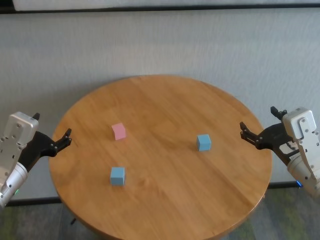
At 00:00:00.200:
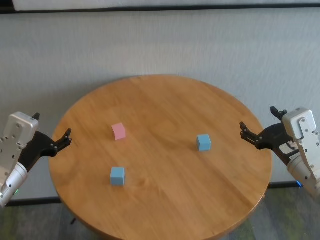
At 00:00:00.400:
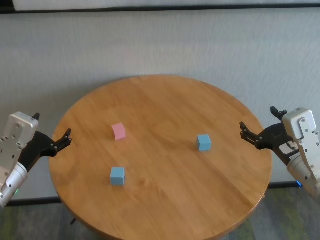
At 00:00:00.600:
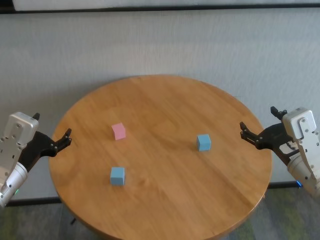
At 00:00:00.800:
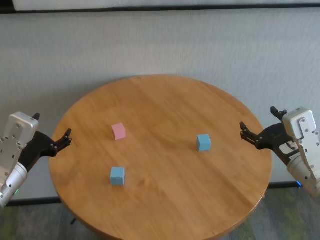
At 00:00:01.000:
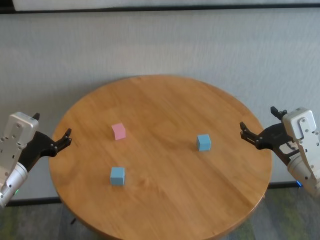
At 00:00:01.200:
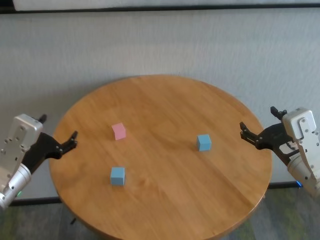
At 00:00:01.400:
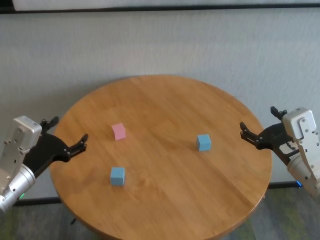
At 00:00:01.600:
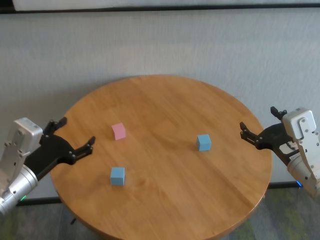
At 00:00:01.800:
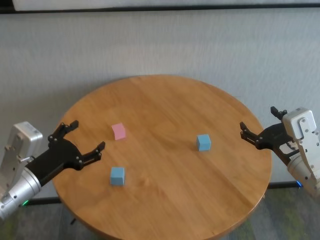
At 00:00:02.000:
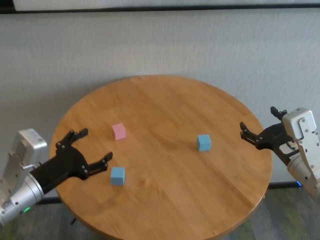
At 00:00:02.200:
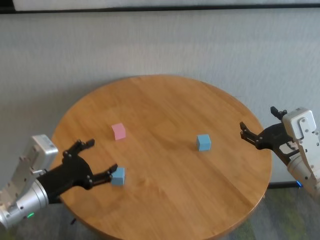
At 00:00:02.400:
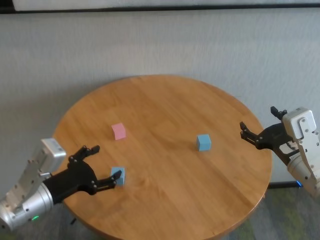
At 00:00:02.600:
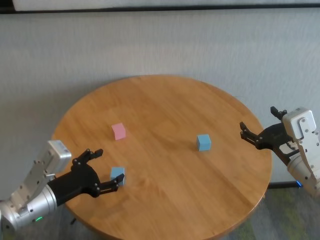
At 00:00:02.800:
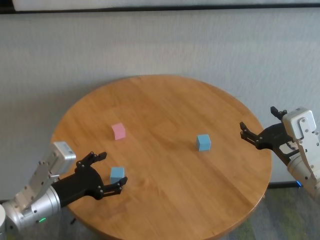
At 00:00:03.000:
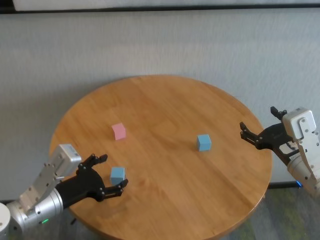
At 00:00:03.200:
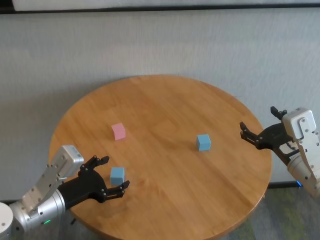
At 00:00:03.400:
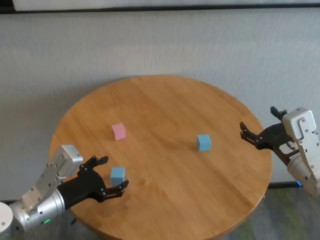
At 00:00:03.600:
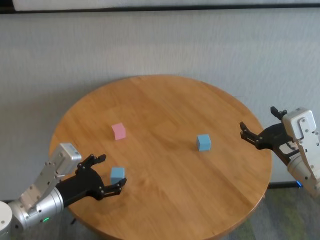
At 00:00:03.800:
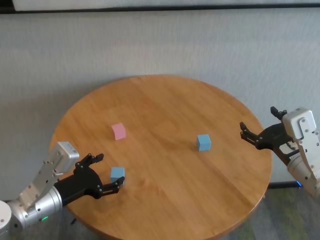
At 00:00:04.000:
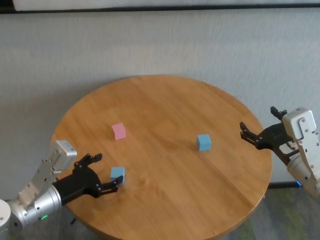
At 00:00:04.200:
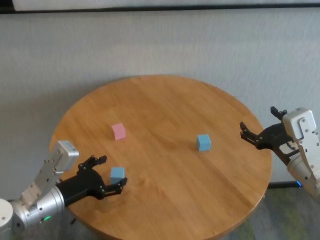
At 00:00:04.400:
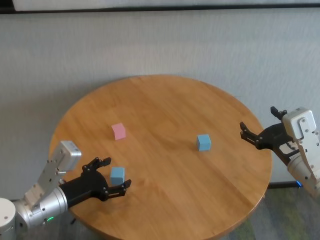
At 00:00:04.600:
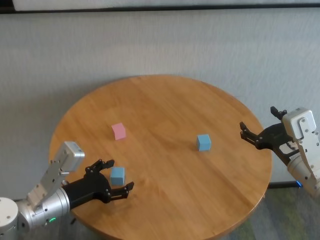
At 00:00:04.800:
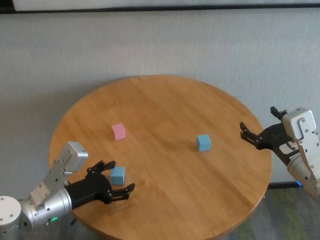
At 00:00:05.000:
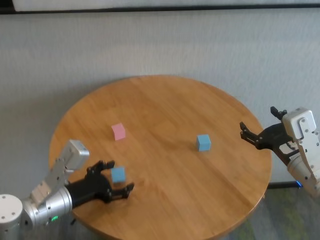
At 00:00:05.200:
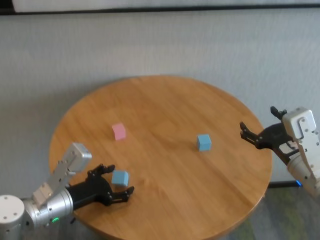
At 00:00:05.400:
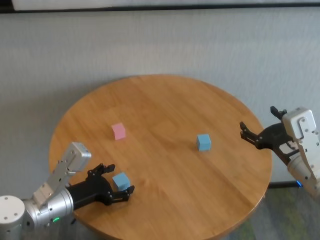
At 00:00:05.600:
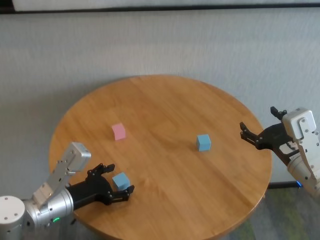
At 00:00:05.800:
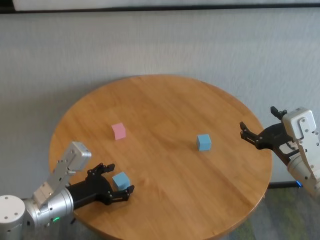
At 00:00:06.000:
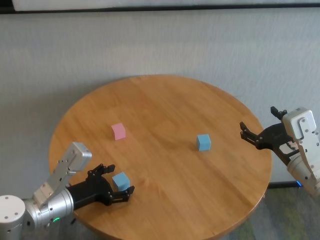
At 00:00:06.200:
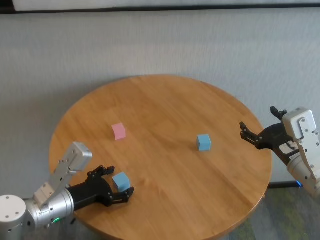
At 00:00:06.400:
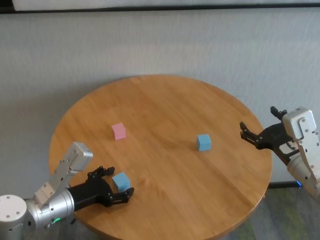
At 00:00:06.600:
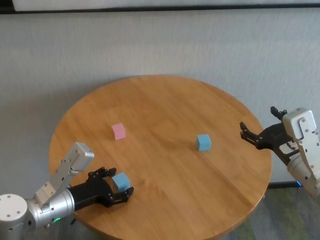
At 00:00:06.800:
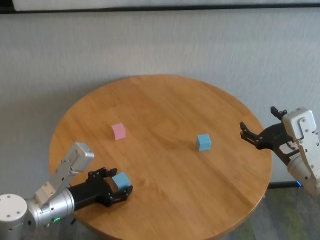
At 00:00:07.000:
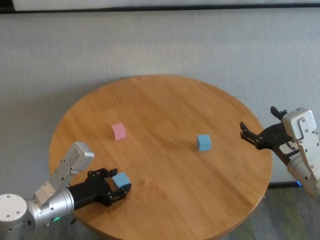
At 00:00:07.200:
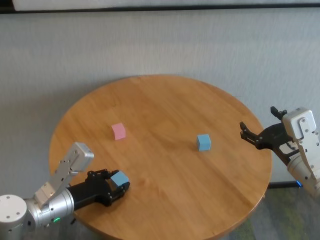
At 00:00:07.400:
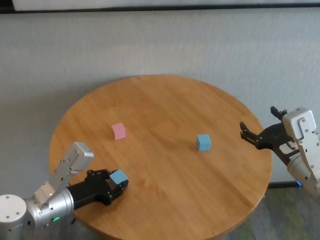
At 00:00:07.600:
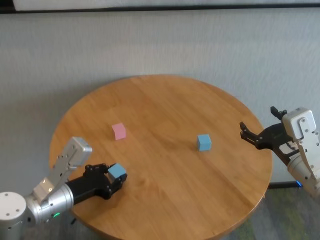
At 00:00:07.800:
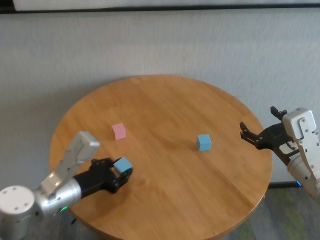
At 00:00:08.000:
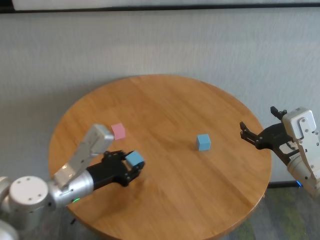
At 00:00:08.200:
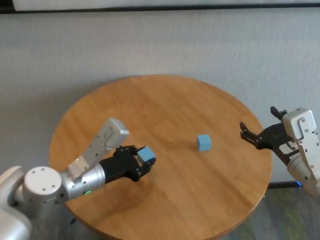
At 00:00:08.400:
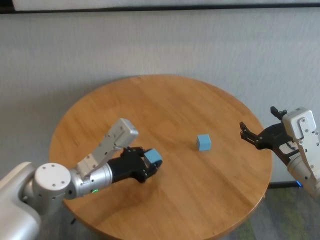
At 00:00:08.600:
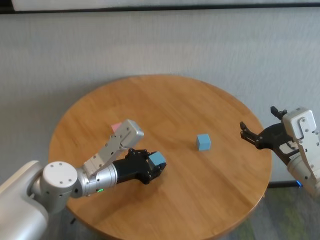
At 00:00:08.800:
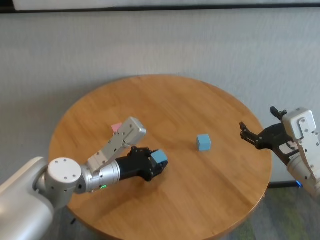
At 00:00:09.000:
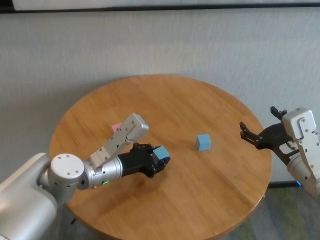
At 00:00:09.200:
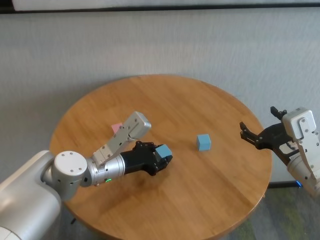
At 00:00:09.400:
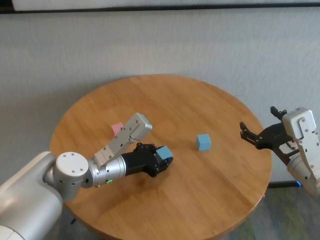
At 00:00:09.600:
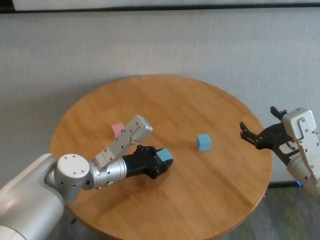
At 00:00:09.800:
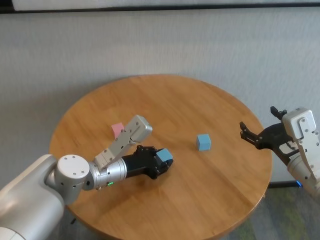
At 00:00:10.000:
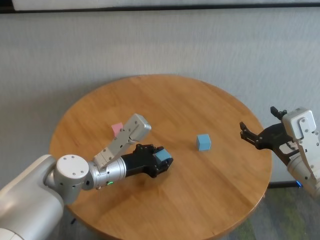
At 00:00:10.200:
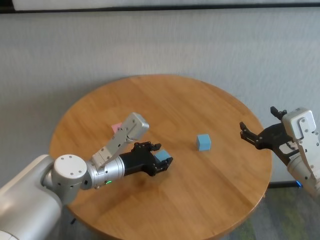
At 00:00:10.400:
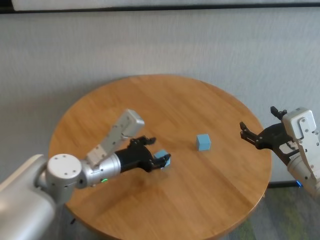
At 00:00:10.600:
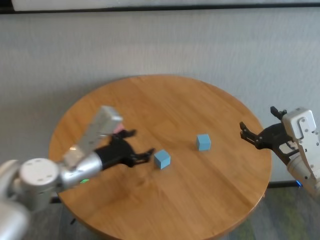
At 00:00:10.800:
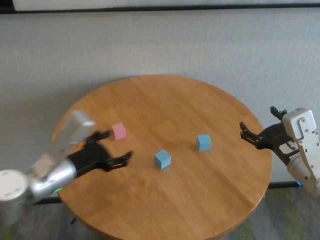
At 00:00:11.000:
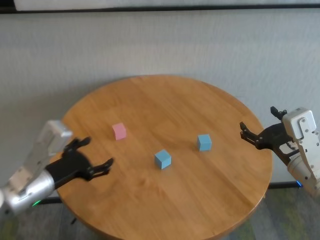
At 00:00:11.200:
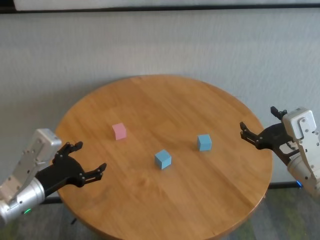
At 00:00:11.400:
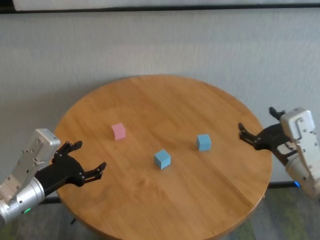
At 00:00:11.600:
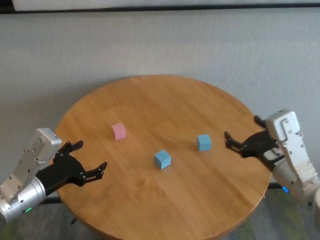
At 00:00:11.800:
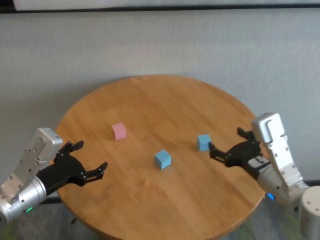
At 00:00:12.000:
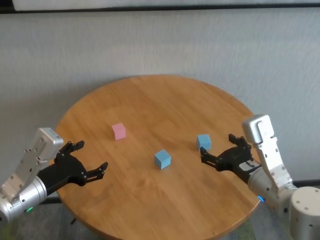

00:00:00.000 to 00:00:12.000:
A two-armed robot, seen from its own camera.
Task of the whole recording: stack building blocks on the table.
Step, 00:00:00.000 to 00:00:07.200: Grasp the blue building block with left gripper.
Step, 00:00:07.400 to 00:00:10.200: Place the blue building block in the center of table with left gripper.

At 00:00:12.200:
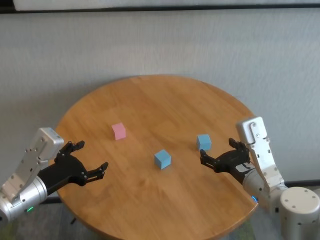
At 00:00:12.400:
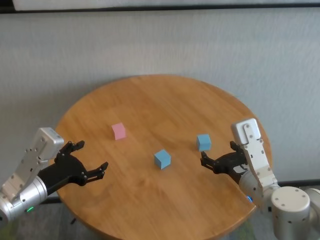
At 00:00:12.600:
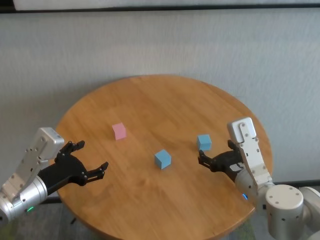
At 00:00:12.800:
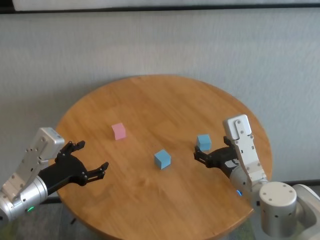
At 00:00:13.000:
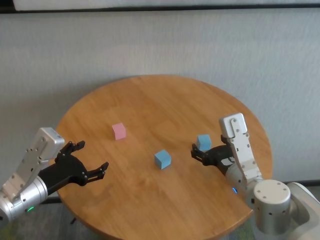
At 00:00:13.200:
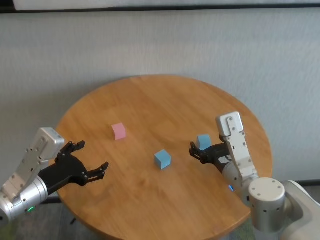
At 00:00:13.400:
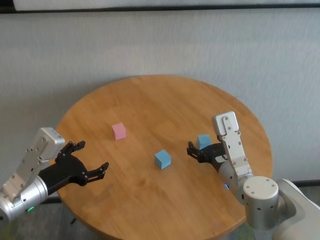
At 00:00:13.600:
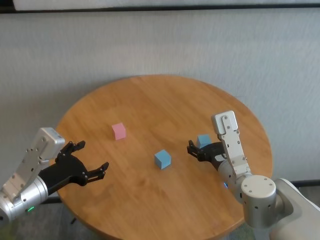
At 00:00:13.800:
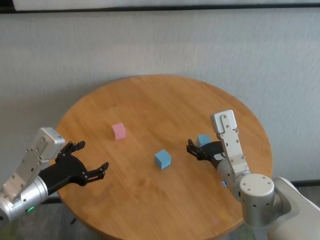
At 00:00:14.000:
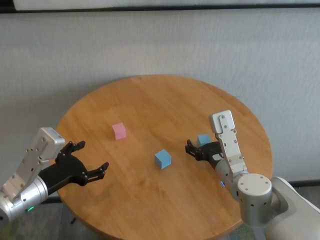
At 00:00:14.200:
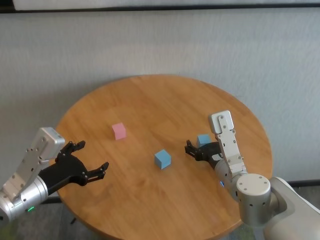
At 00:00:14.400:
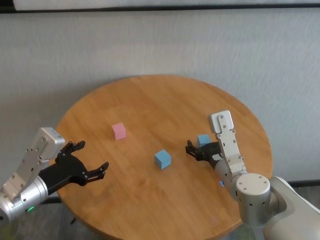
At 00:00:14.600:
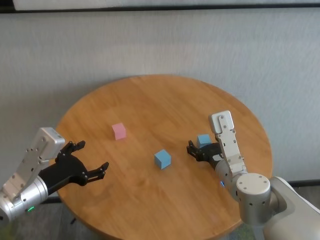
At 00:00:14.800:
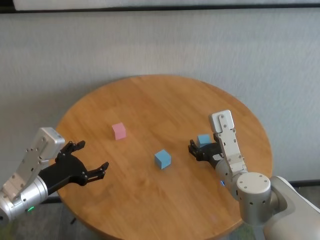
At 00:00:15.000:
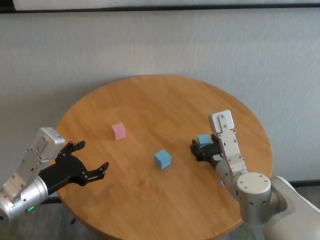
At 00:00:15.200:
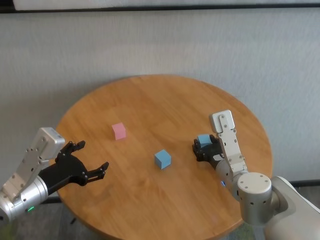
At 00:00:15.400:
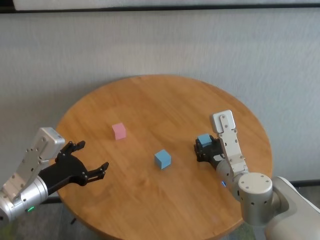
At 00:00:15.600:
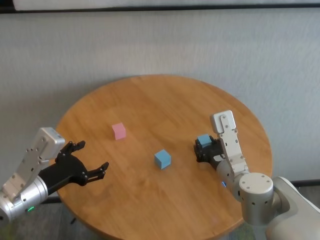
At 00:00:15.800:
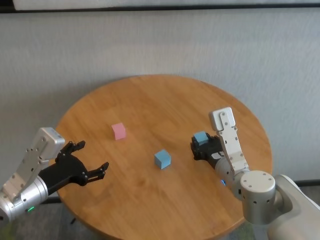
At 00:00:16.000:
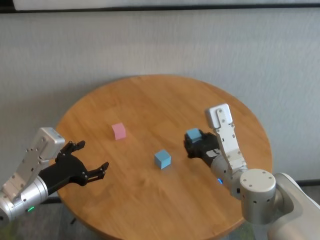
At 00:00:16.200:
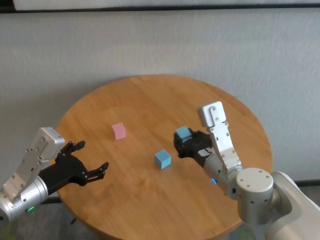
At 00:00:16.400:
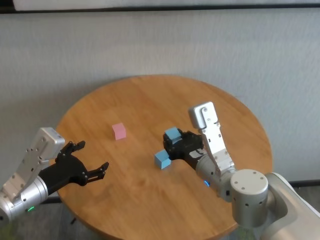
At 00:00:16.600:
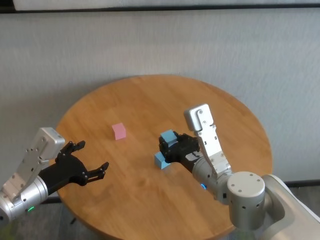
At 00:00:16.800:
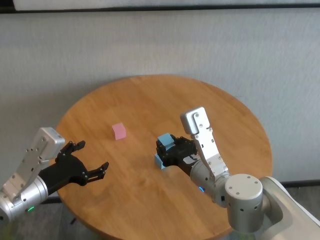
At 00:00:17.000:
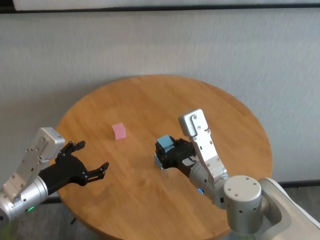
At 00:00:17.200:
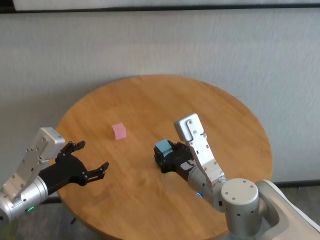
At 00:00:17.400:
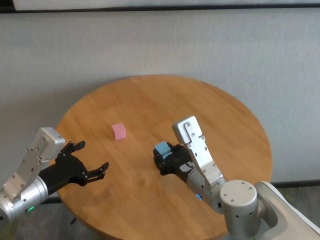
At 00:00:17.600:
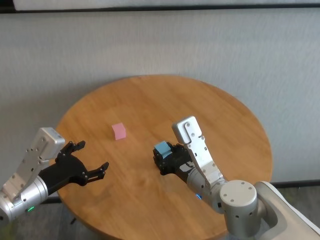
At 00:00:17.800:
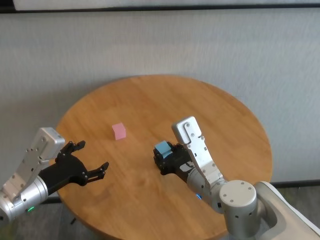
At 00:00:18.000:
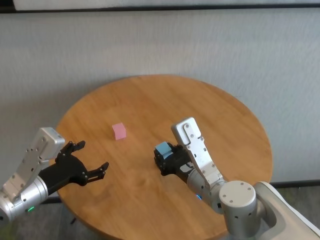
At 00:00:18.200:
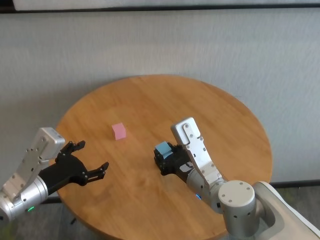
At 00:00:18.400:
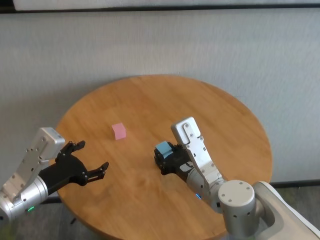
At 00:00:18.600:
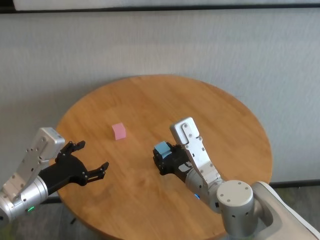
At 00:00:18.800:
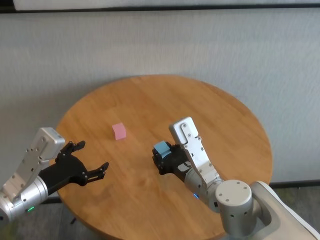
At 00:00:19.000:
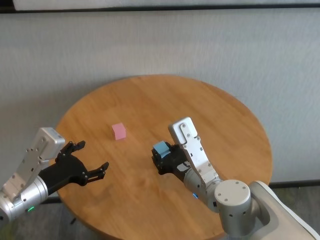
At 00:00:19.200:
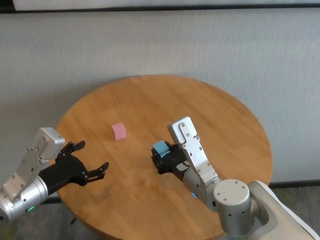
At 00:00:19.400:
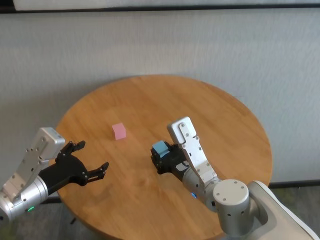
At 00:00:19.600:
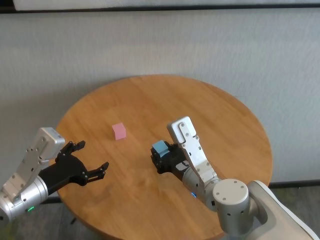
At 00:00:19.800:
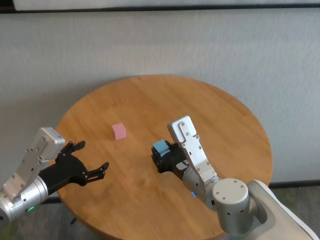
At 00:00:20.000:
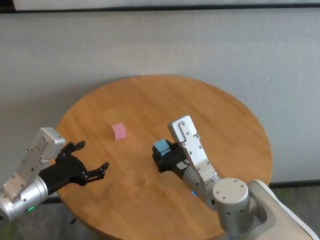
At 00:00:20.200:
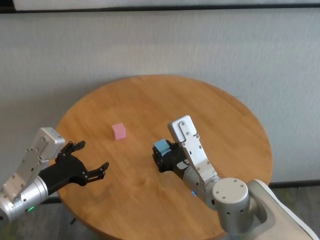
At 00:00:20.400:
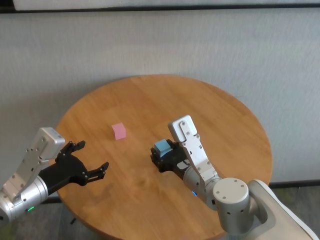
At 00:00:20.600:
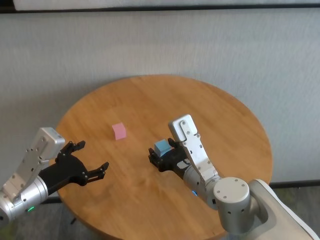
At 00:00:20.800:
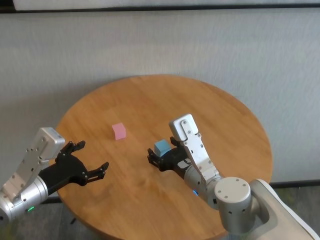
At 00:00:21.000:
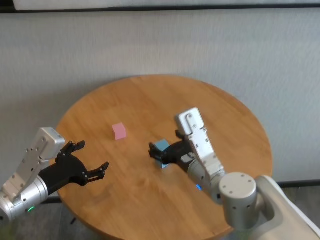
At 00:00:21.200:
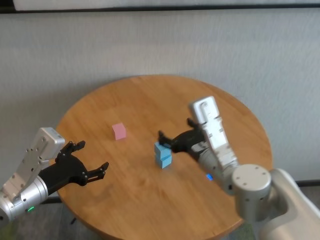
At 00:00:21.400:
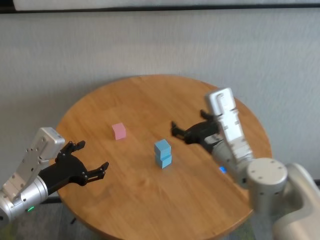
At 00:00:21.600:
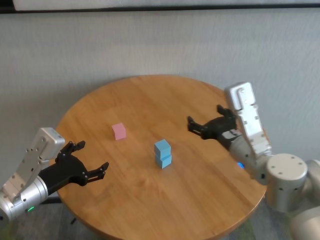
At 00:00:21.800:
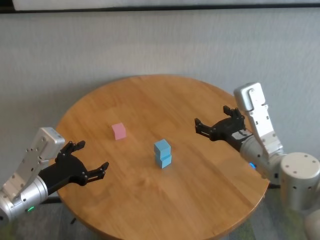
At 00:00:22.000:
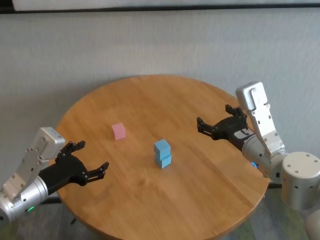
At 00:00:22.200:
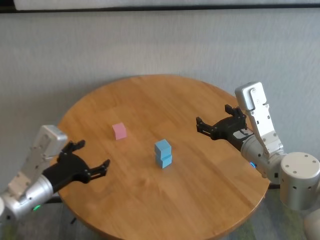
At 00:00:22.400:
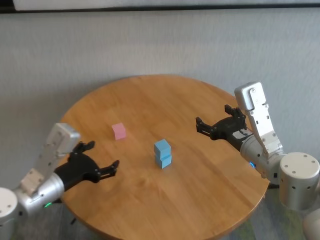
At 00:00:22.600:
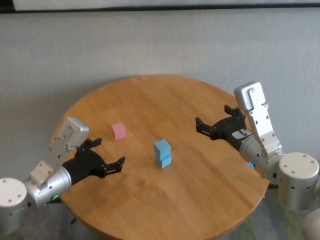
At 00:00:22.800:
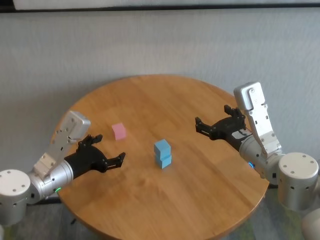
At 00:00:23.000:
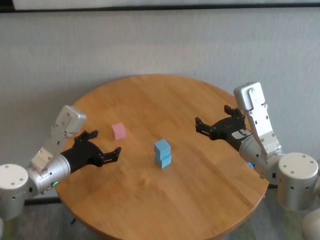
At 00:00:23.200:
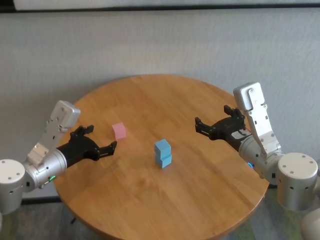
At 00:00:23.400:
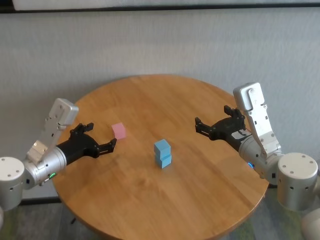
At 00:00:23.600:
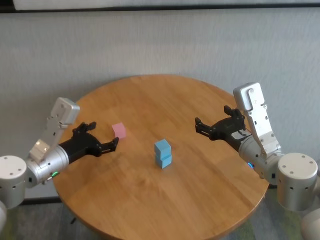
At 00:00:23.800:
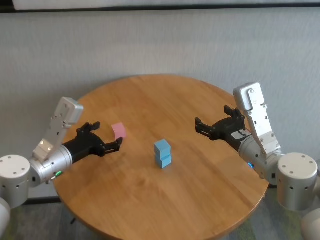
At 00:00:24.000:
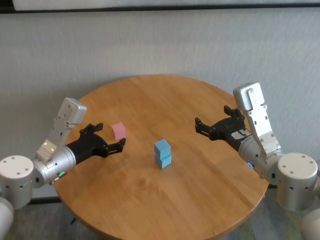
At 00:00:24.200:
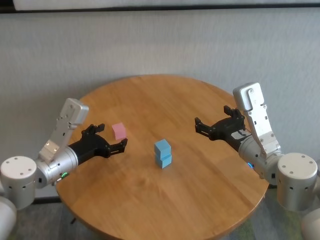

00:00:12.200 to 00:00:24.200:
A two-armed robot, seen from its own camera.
Task of the whole recording: stack building blocks on the table.
Step, 00:00:12.200 to 00:00:15.200: Grasp the blue building block with right gripper.
Step, 00:00:15.400 to 00:00:20.800: Place the blue building block on the blue building blocks with right gripper.
